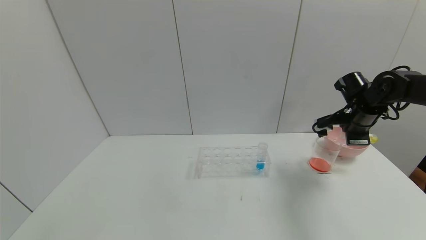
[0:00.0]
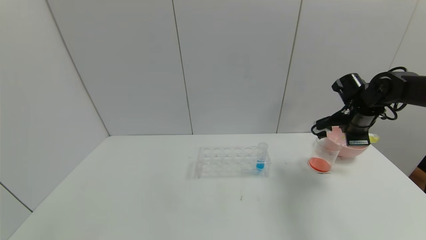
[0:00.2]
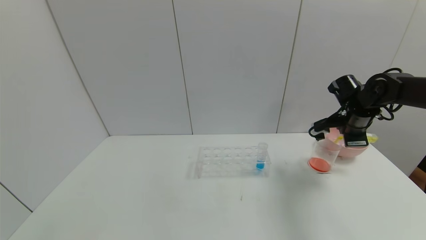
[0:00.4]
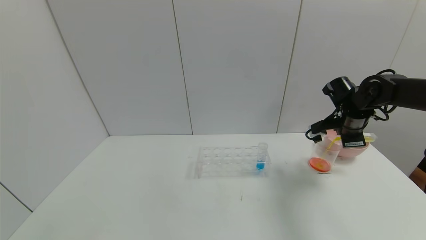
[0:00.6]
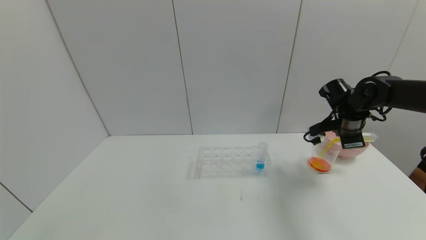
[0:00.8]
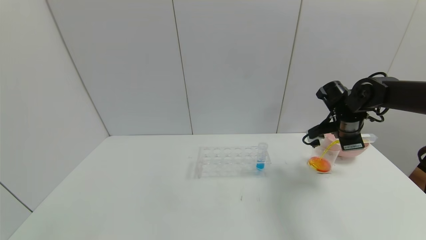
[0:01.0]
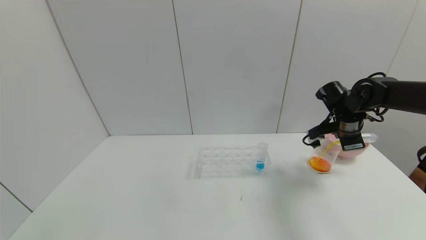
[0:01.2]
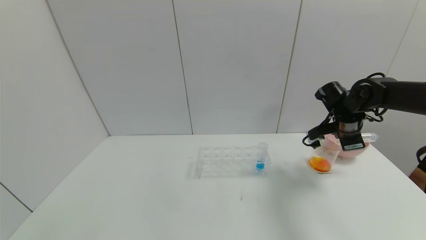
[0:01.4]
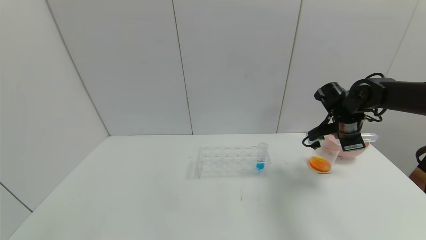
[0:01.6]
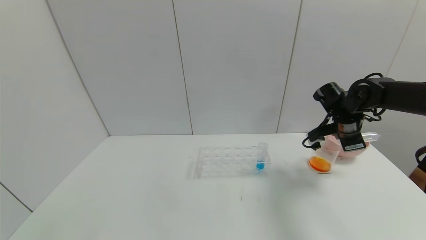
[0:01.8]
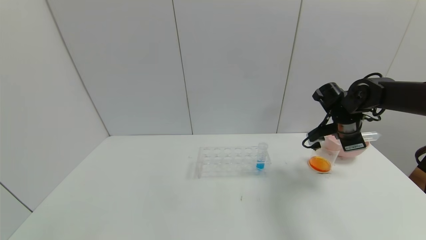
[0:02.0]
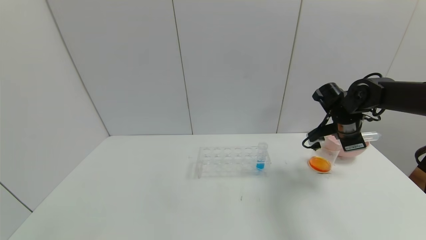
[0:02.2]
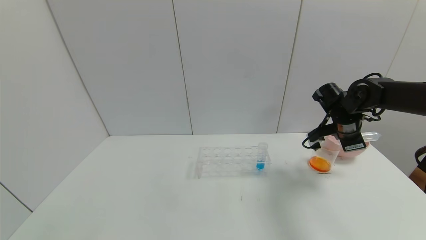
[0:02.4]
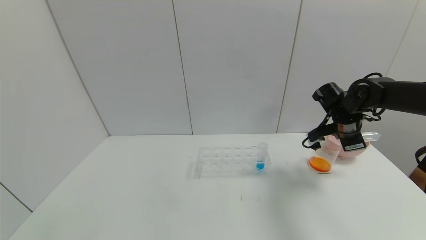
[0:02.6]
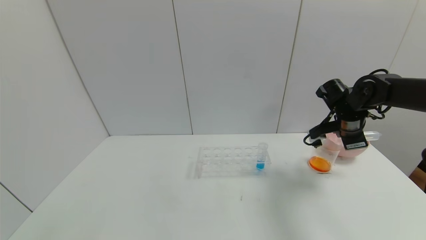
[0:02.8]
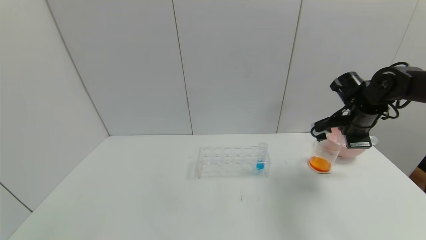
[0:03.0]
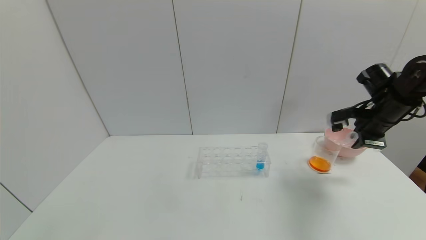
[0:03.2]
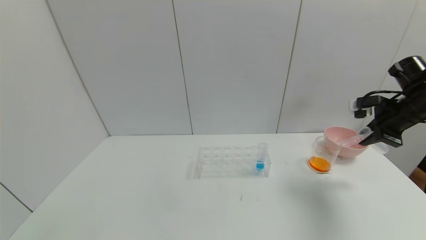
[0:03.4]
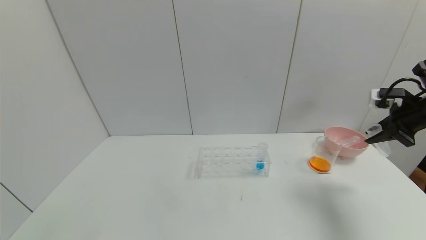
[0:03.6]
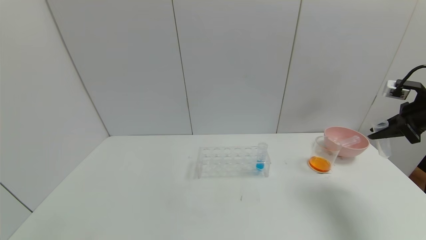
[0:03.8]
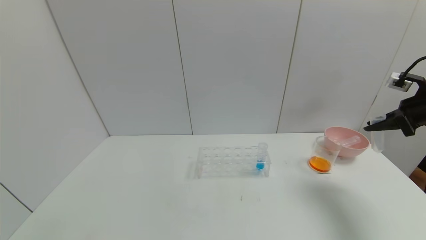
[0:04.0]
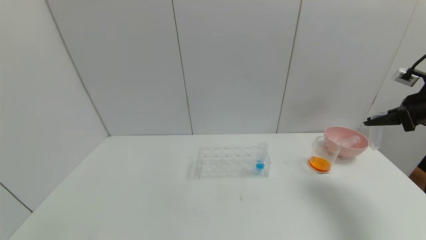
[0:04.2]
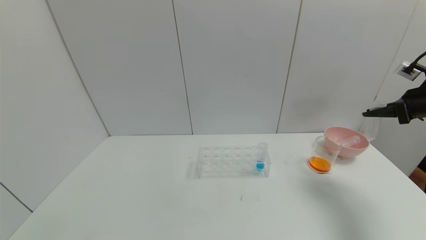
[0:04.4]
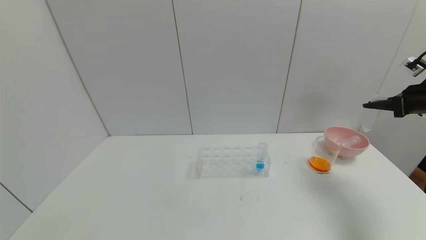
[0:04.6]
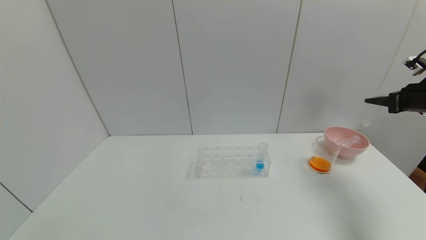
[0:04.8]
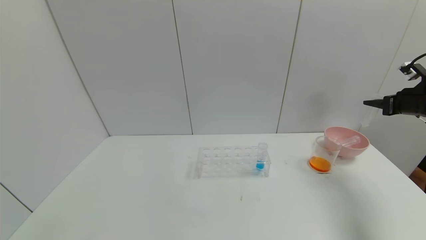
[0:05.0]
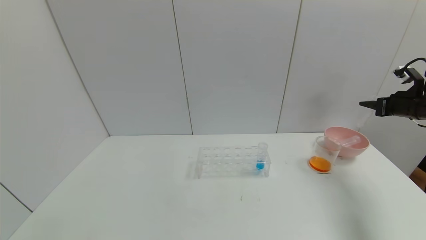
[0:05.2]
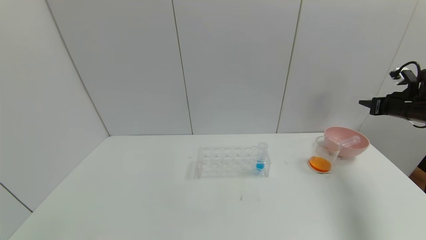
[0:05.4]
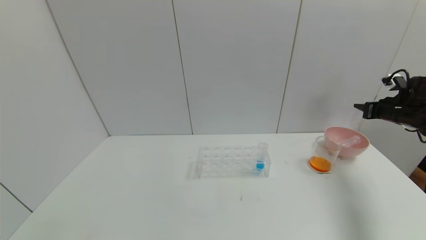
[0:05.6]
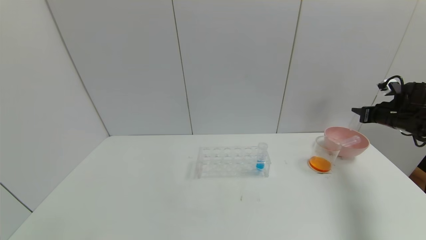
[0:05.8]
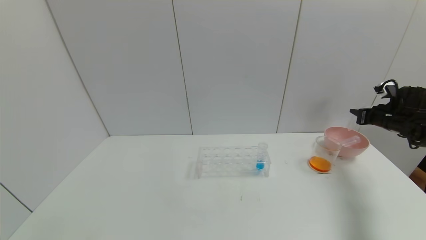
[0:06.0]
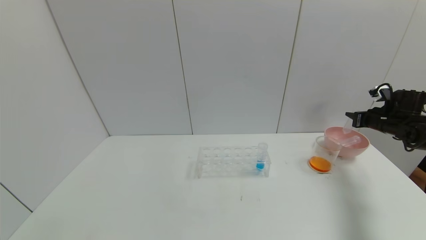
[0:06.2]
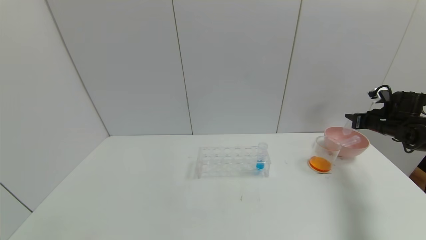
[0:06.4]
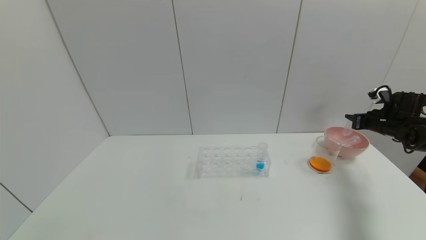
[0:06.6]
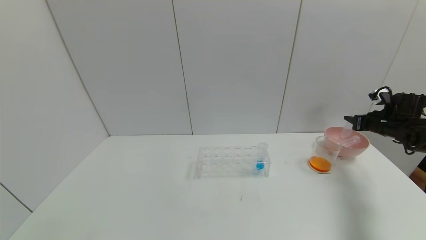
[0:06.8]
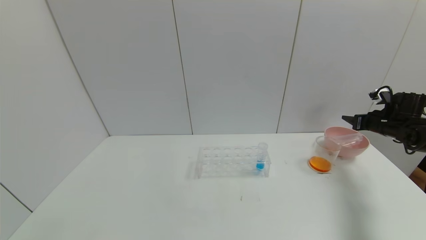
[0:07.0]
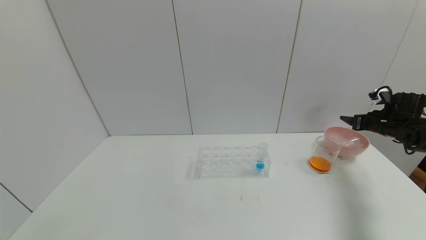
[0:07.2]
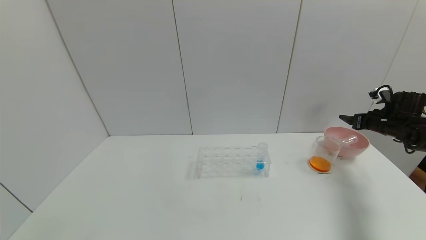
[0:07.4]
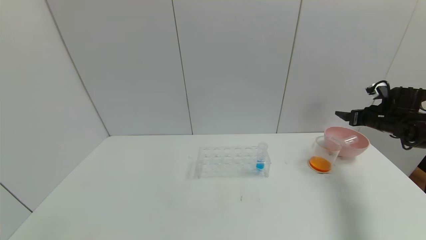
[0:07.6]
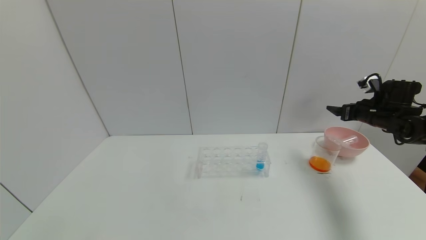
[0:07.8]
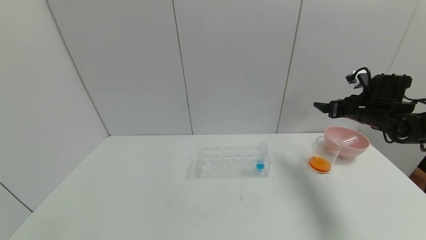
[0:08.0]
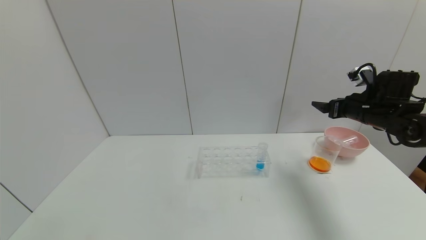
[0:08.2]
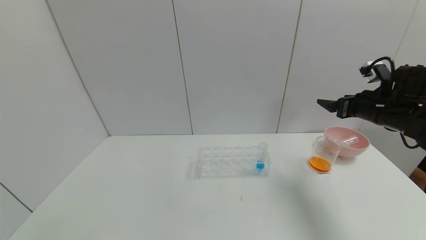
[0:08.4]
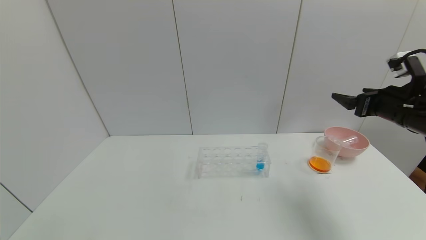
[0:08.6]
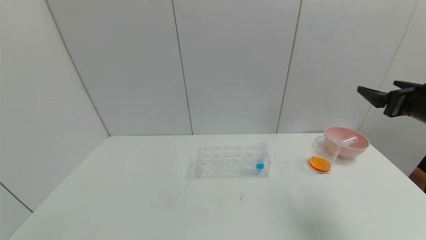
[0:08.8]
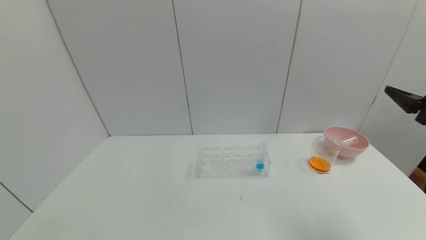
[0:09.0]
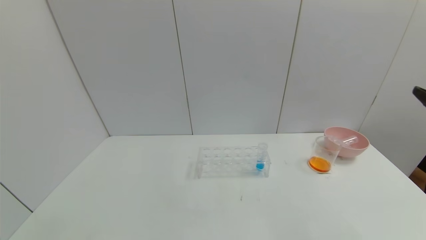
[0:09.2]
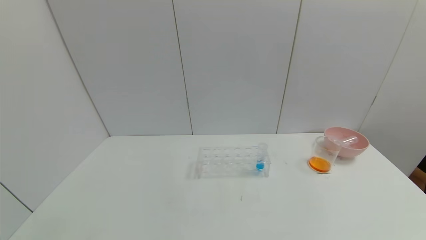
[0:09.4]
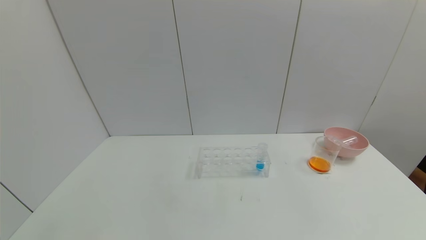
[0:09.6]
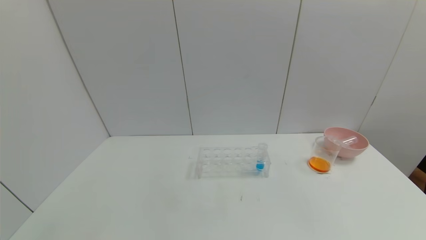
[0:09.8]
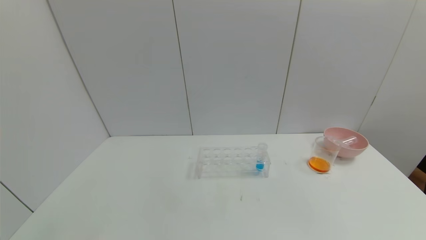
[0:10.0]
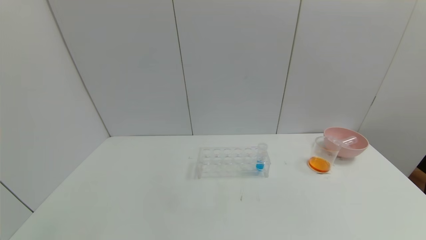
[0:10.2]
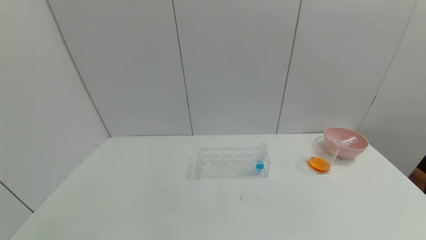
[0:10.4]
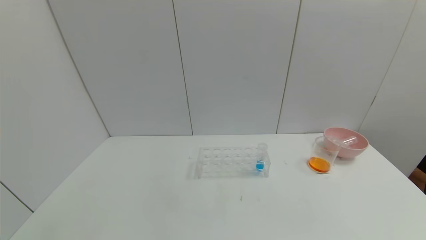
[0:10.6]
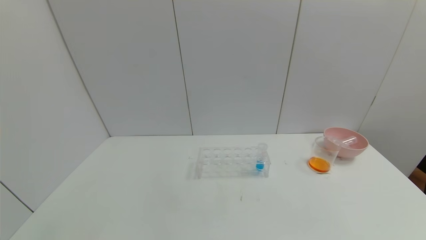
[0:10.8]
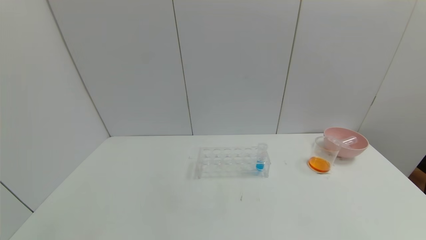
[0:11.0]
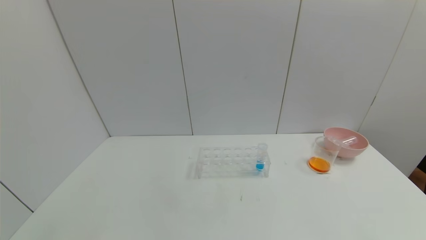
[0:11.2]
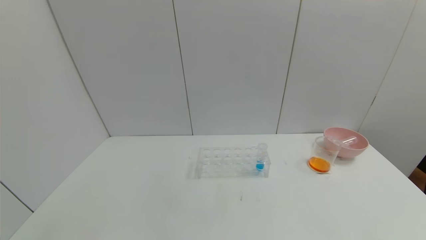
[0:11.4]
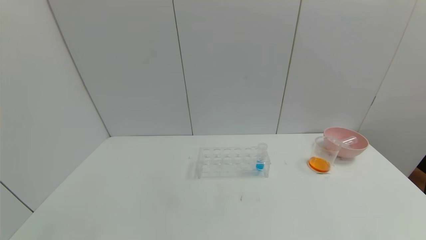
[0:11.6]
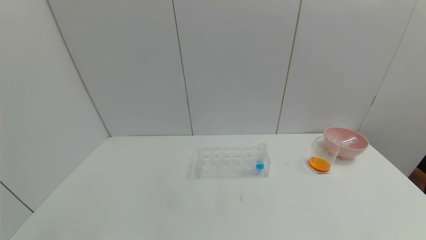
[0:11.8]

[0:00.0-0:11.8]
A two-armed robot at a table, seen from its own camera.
Task of the whole recording: pick up the test tube with yellow pigment and the test tube with red pigment by grippers and pour them into the beaker.
Step, 0:00.0 to 0:02.4: Pour the yellow reagent into the graduated cylinder with the right gripper.
Step, 0:02.6 to 0:07.2: Place the test tube into the bowl with the right gripper.
0:00.0 to 0:03.0: There are only small adjustments of the grippers.
0:03.0 to 0:04.4: The right gripper shifts approximately 15 cm to the right.
0:04.4 to 0:06.0: The right gripper goes some 15 cm downward and forward.
0:06.0 to 0:07.4: The right gripper opens its fingers.
0:07.4 to 0:08.8: The right gripper heads backward, upward and to the left, covering approximately 25 cm.
0:08.8 to 0:10.4: The right gripper is displaced backward by about 35 cm.

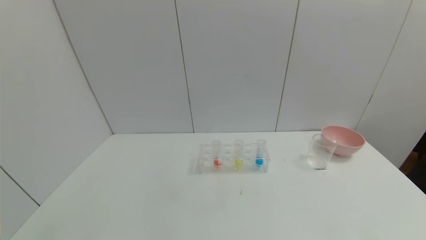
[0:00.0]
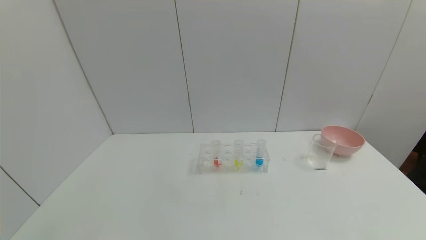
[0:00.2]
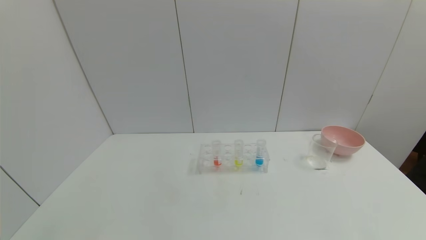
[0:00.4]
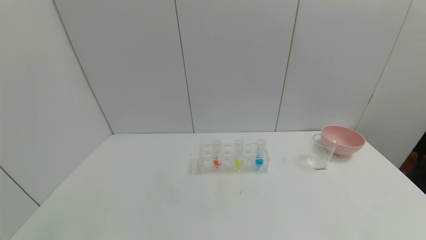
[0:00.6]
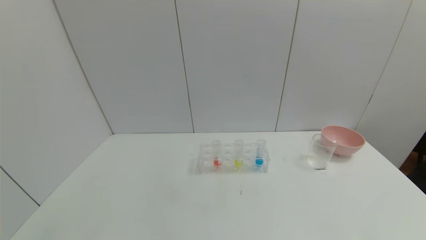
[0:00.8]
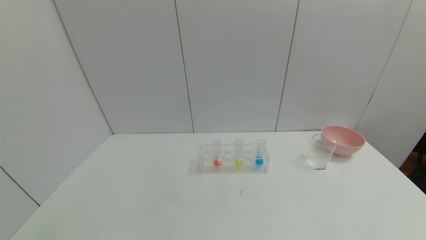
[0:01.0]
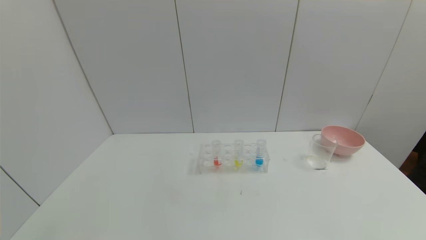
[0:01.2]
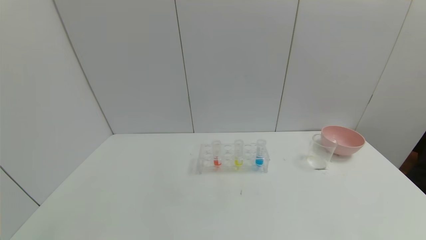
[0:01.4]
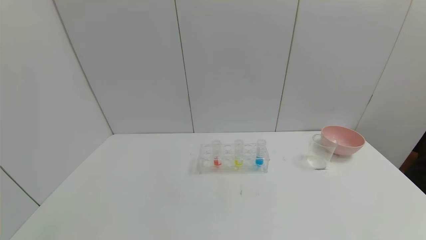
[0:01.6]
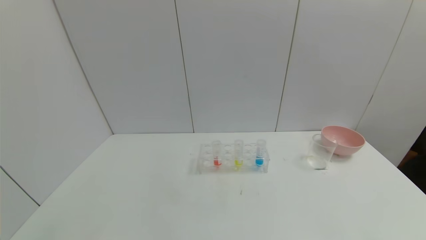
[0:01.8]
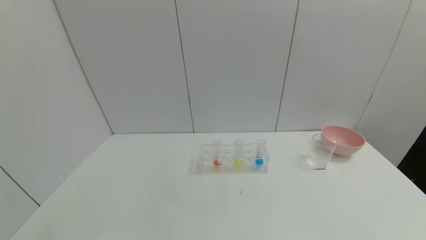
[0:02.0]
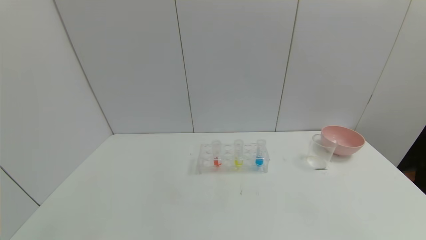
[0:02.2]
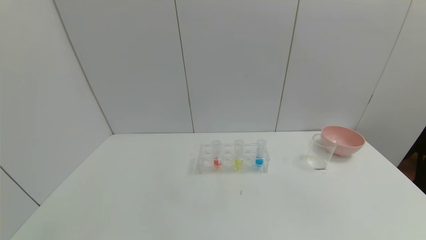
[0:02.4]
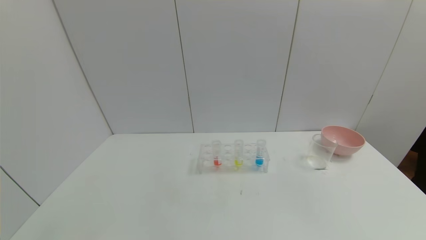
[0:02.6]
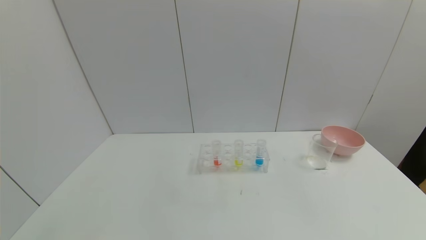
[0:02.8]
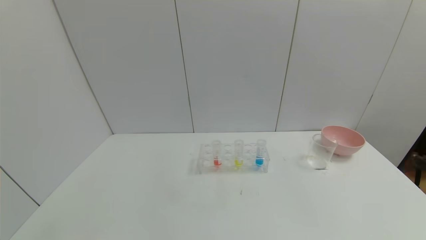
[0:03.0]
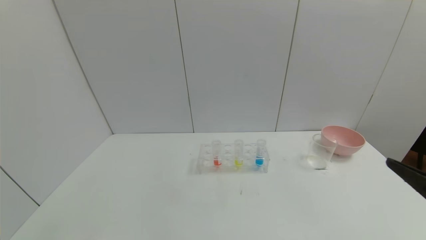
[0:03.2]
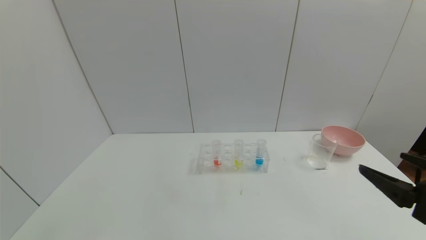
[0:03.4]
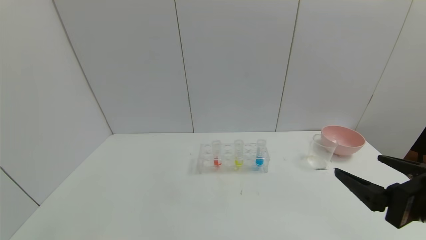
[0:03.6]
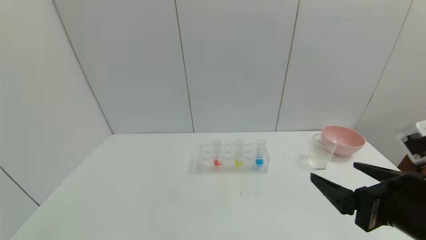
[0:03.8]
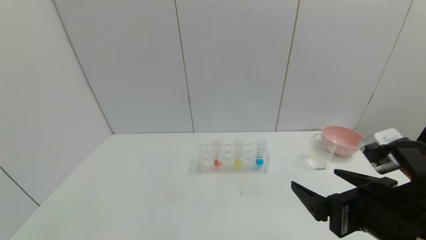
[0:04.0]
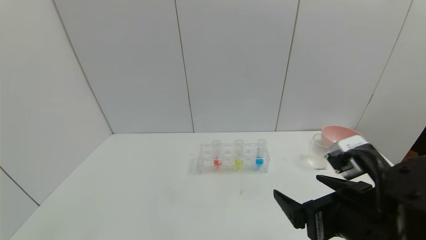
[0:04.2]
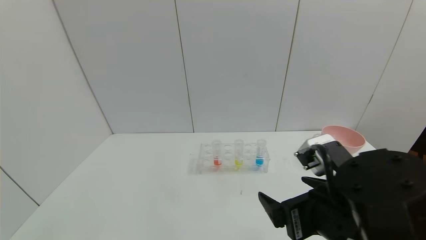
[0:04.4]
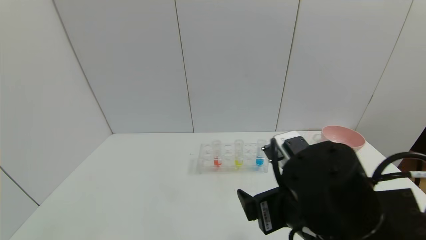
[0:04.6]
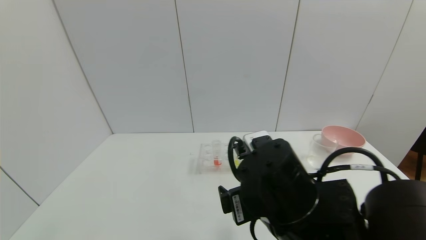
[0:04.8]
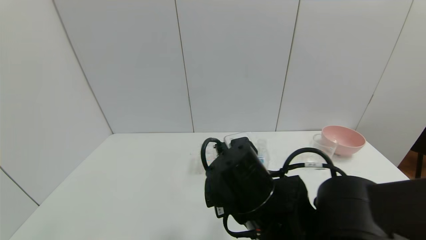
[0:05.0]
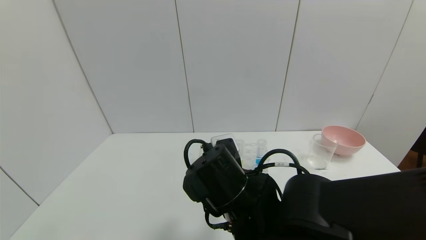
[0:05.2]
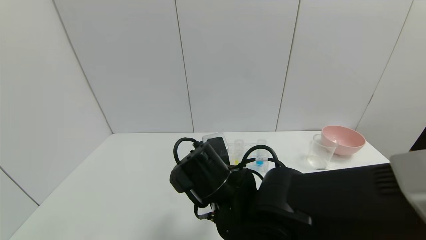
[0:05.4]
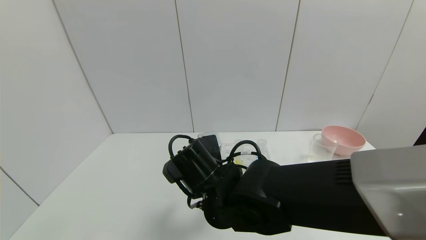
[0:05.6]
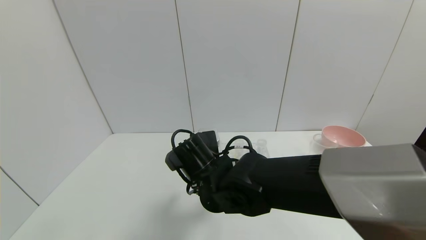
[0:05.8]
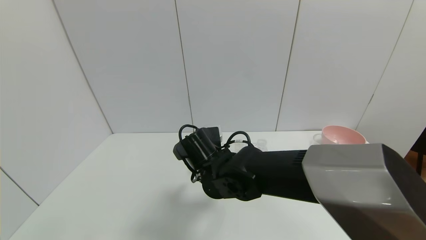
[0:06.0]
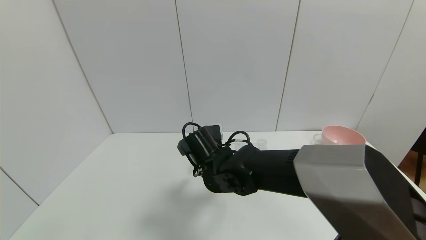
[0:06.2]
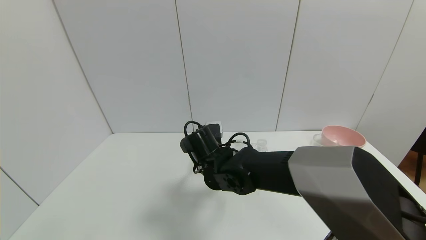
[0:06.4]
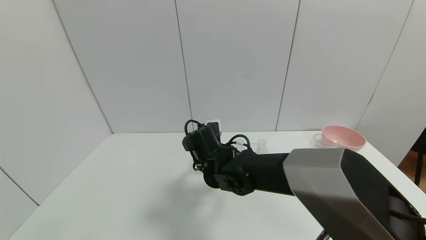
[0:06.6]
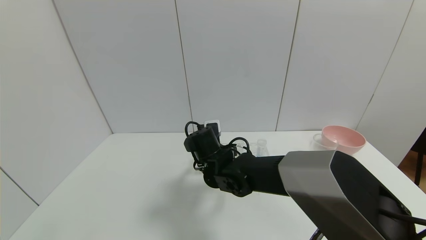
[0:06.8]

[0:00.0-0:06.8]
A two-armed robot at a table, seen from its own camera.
Task of the whole recording: pick up the test tube with yellow pigment and the test tube with red pigment by grippers and pour them into the beaker.
0:00.0 to 0:01.4: Both grippers stay put.
0:02.8 to 0:04.0: The right gripper is displaced to the left and forward by about 15 cm.
0:04.0 to 0:05.4: The right gripper is displaced to the left and forward by roughly 20 cm.
0:05.4 to 0:06.8: The right gripper goes roughly 15 cm forward and downward.
